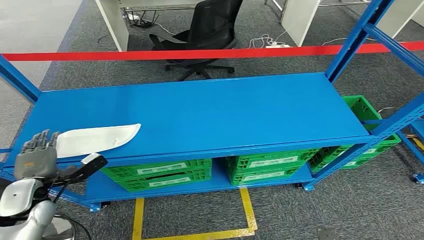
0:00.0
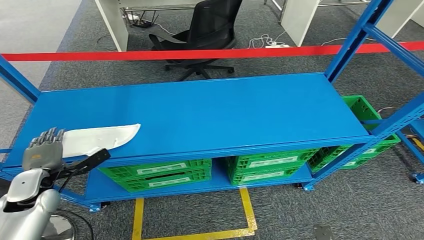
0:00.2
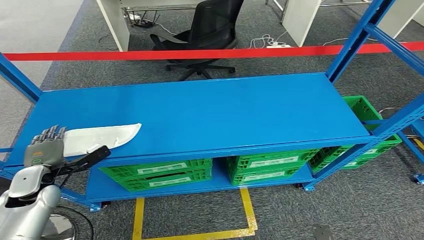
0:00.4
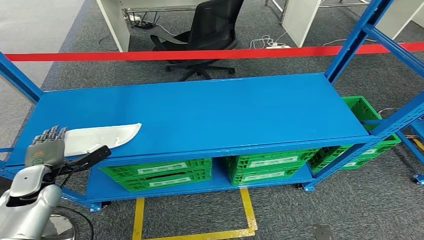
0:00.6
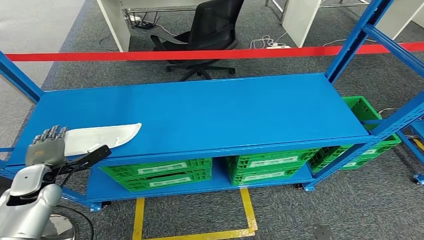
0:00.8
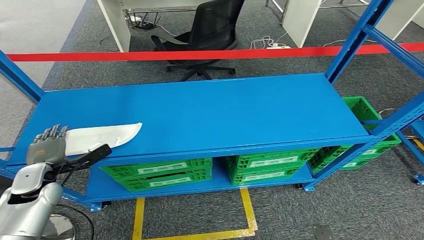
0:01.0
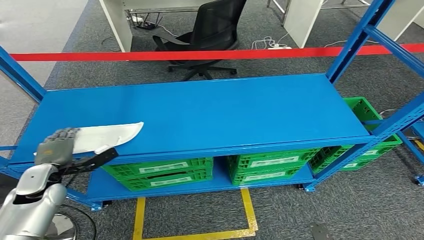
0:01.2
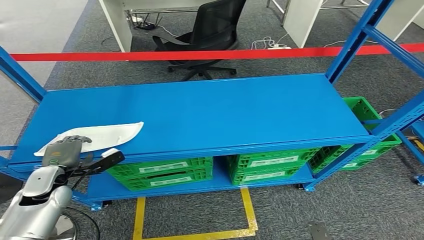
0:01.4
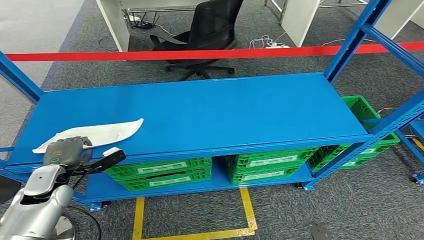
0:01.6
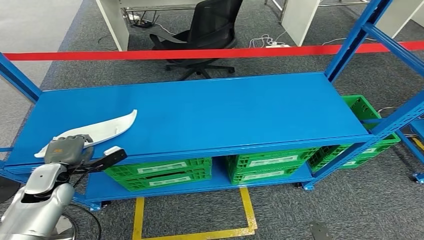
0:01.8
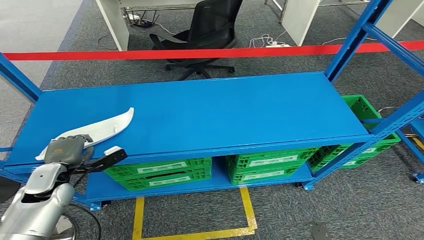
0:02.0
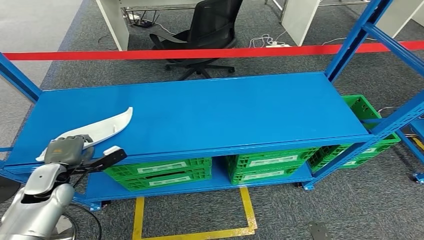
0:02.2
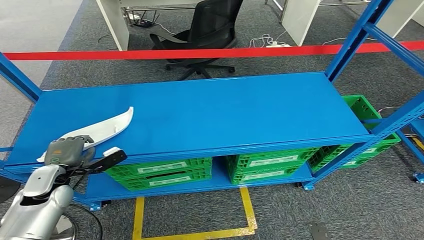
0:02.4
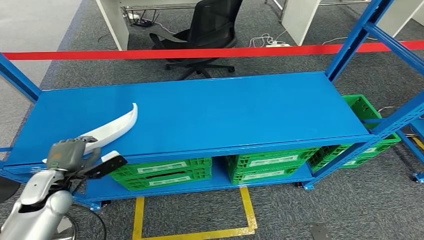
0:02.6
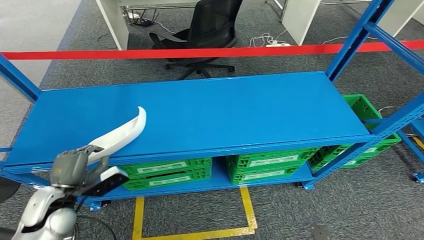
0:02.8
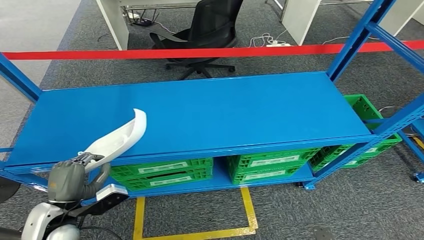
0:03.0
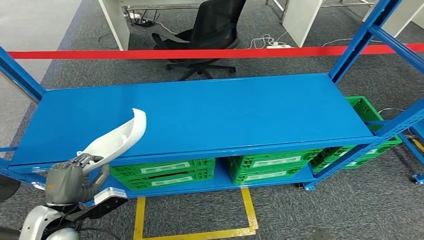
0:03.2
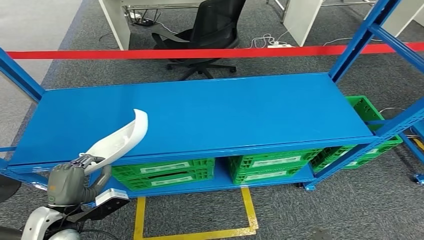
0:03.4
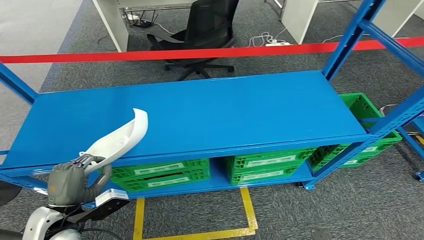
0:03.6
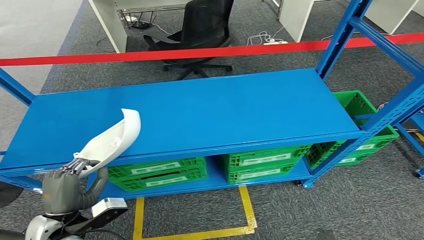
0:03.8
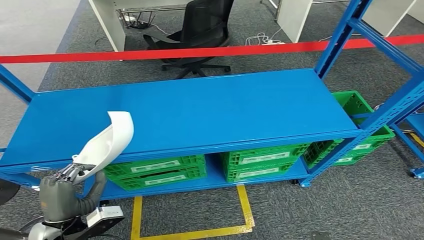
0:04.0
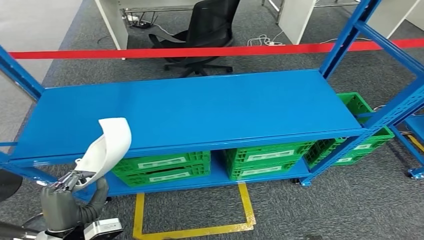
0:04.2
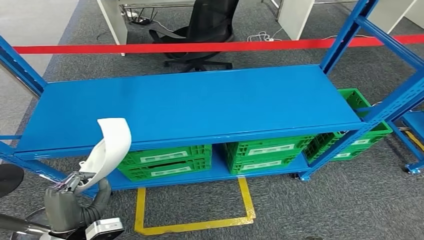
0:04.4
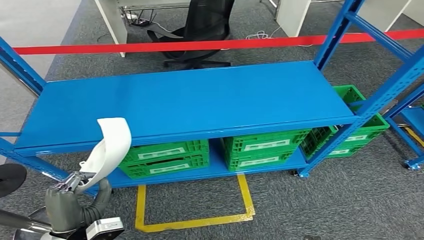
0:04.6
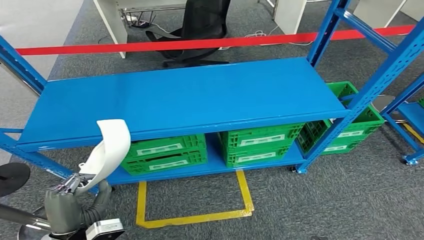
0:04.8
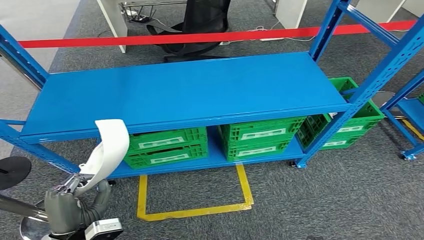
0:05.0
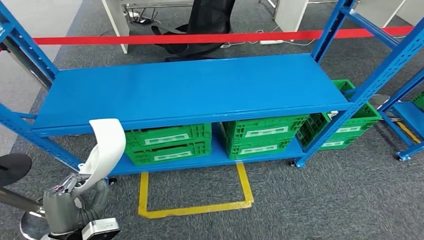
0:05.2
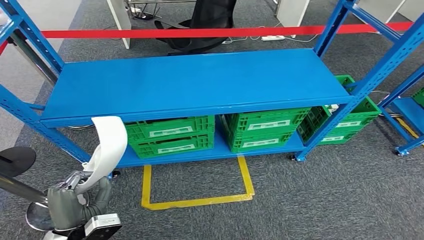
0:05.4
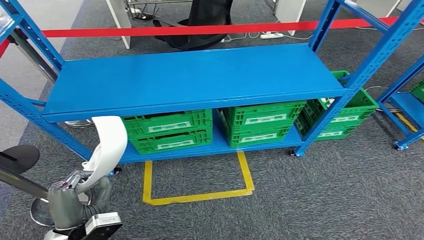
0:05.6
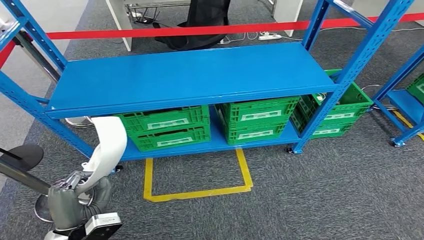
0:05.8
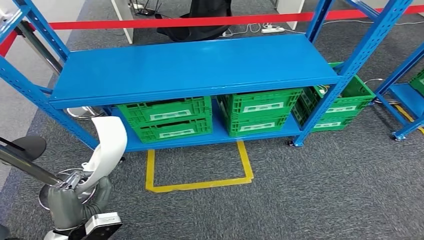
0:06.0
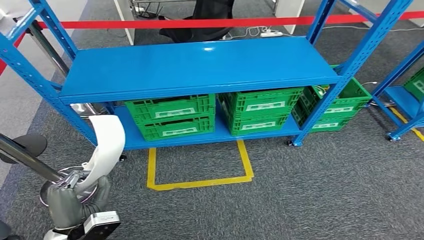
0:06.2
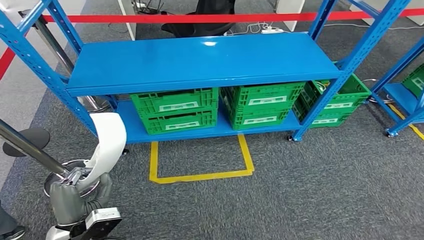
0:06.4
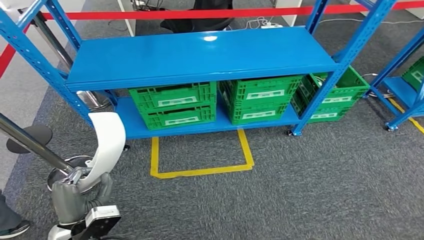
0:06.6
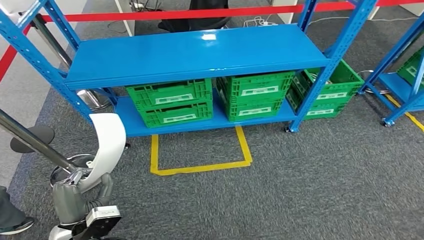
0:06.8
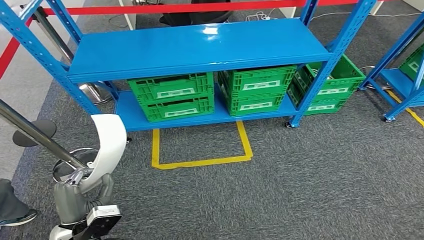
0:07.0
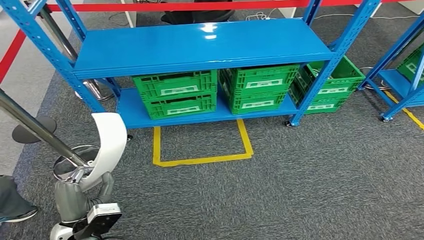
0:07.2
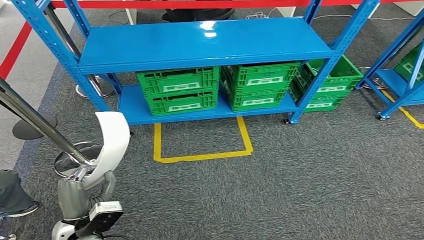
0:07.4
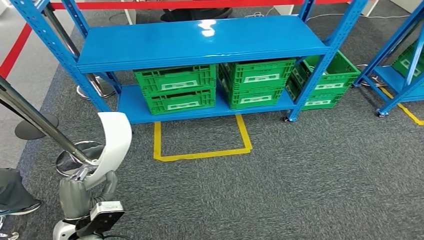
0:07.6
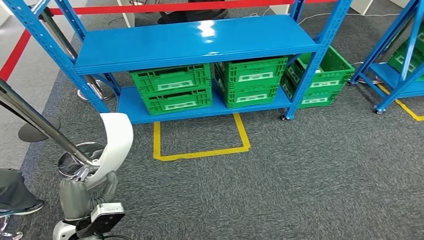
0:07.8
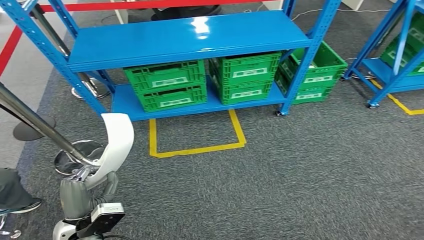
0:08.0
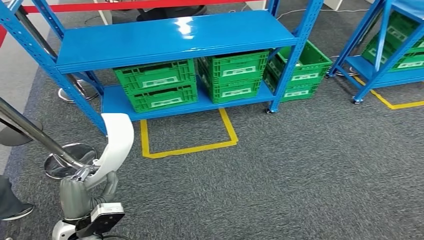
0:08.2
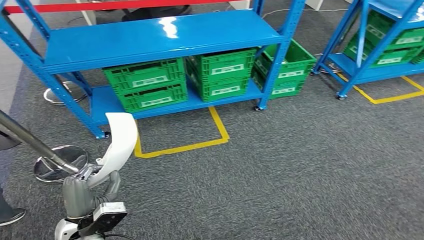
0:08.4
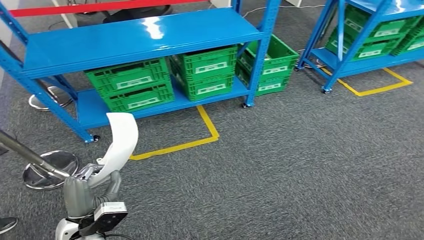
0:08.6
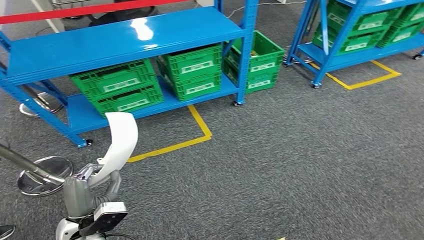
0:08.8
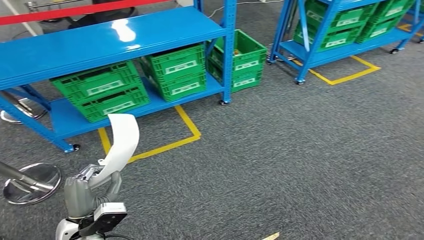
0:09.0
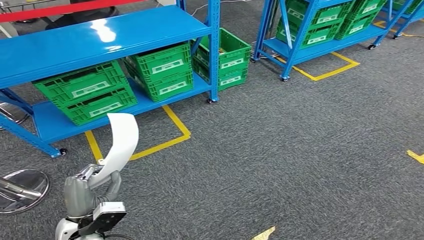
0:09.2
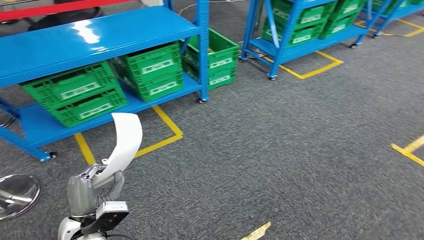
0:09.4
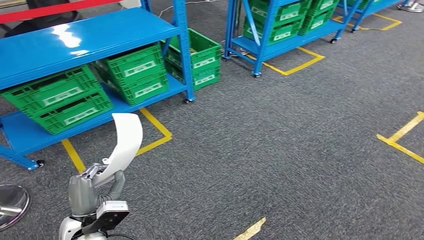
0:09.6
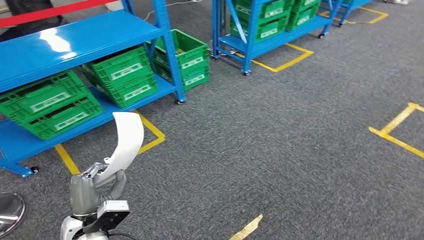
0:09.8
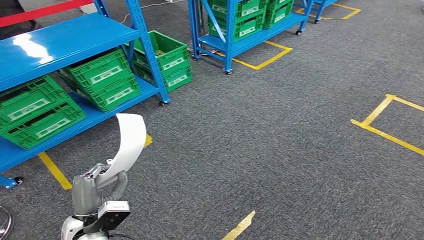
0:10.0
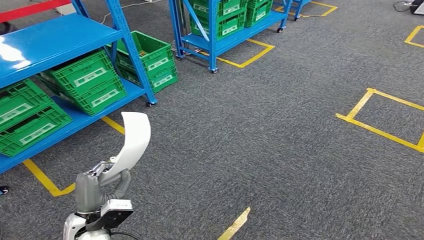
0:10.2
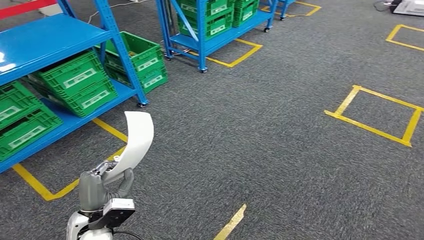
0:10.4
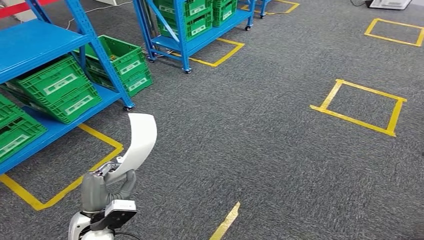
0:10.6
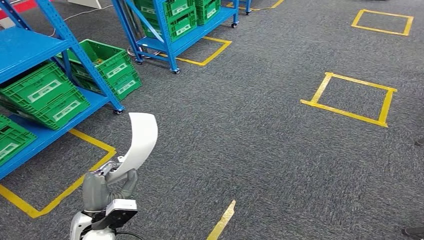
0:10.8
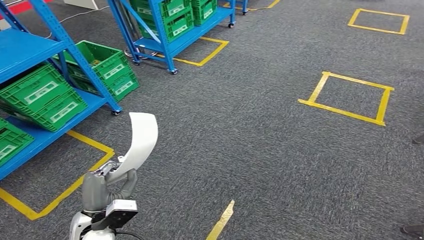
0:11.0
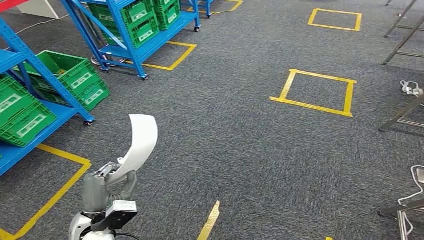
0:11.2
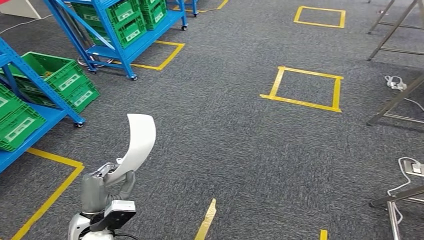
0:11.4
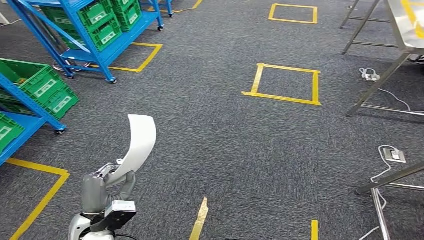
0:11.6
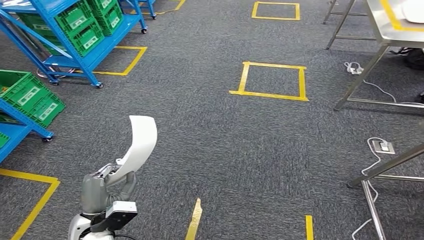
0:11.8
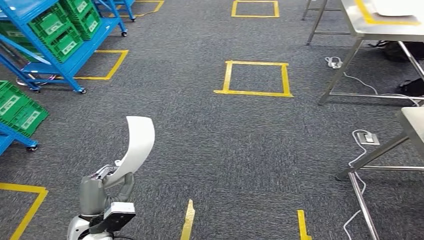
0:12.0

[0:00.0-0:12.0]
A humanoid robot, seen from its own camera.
Step, 0:00.0 to 0:05.4: Pick up the small component from the shelf.
0:01.6 to 0:03.0: The left hand heads backward and to the right, covering approximately 10 cm.

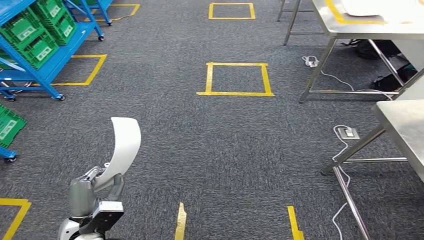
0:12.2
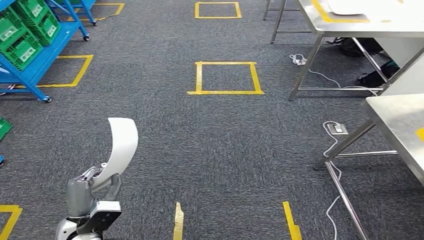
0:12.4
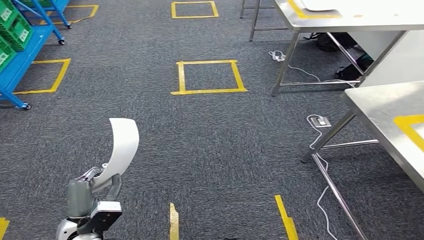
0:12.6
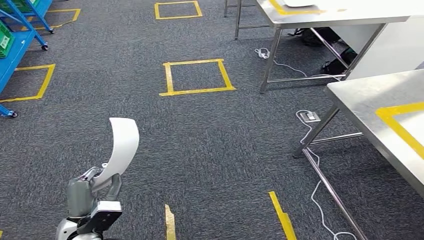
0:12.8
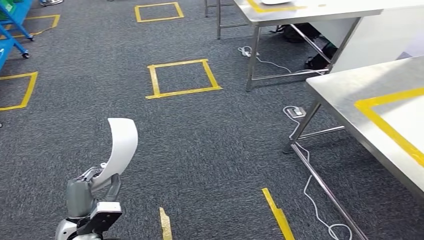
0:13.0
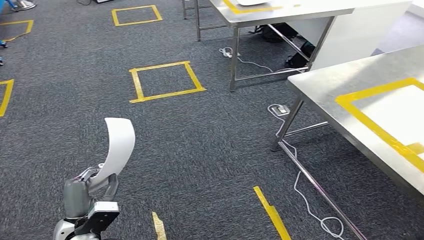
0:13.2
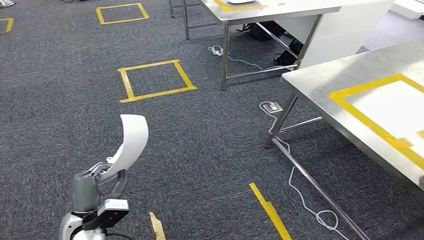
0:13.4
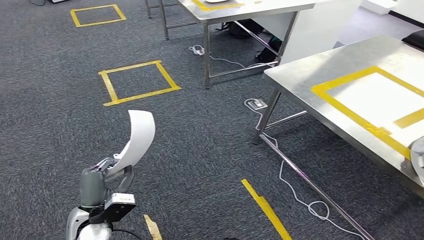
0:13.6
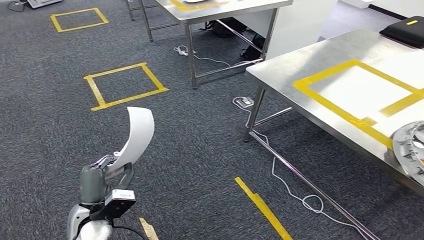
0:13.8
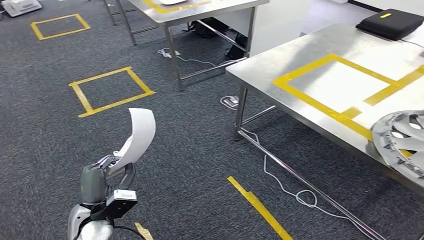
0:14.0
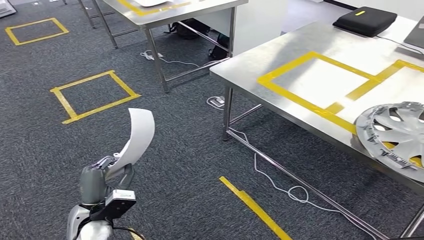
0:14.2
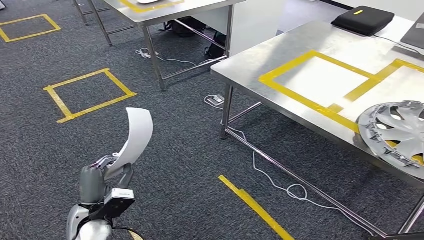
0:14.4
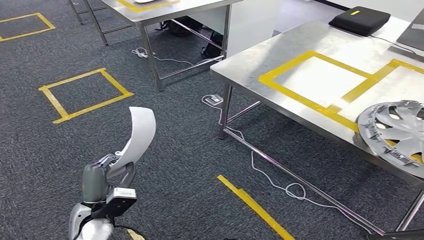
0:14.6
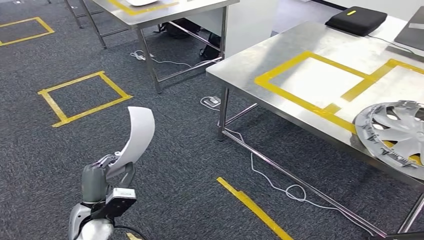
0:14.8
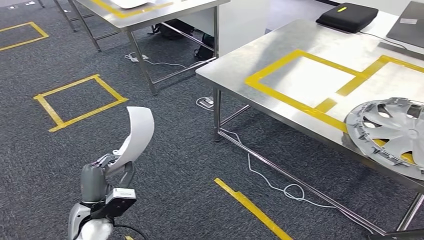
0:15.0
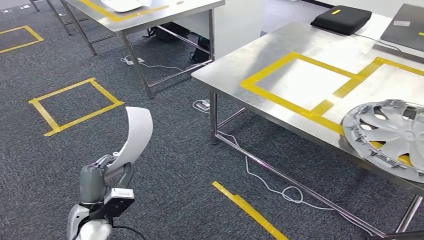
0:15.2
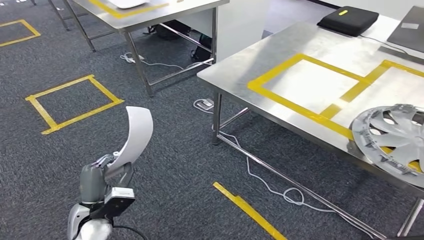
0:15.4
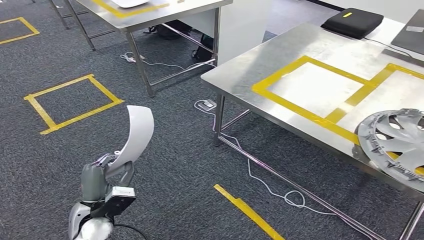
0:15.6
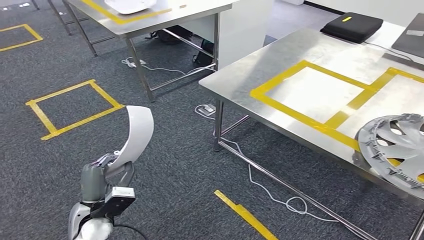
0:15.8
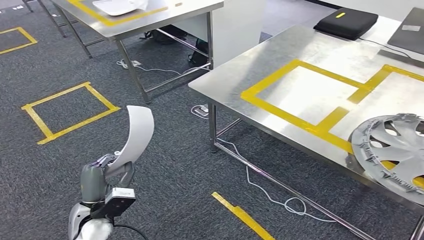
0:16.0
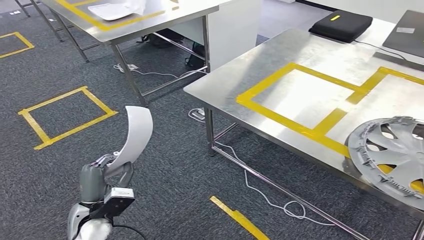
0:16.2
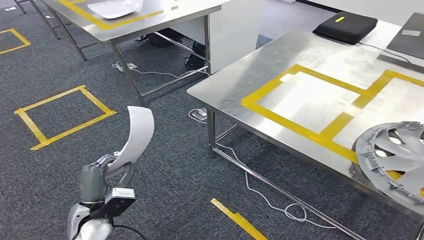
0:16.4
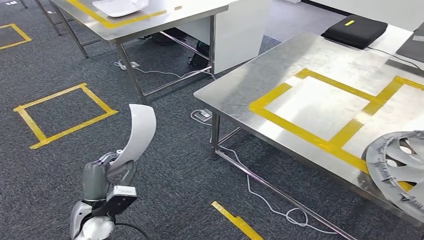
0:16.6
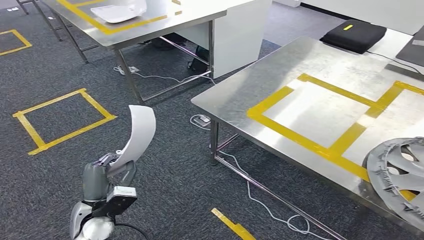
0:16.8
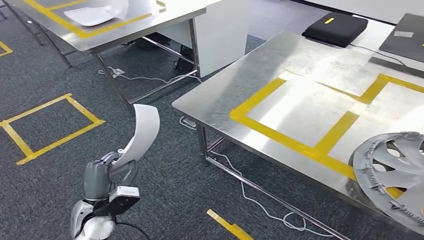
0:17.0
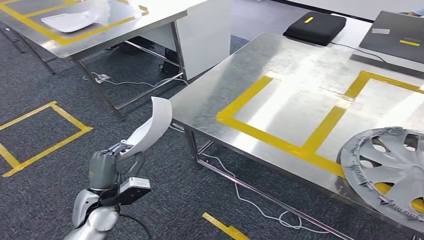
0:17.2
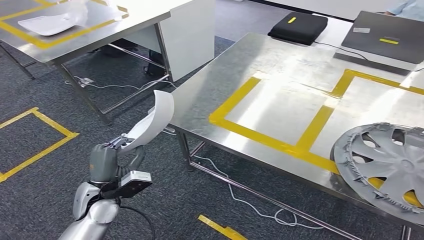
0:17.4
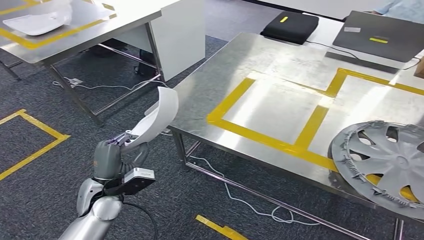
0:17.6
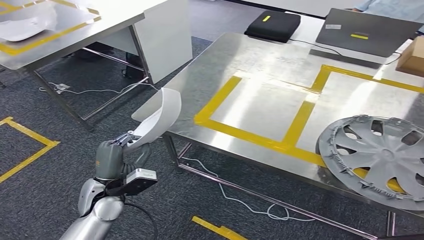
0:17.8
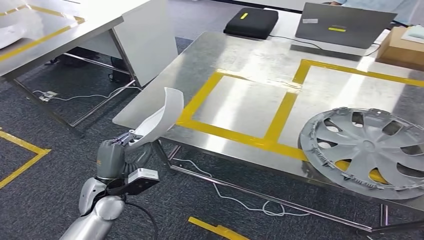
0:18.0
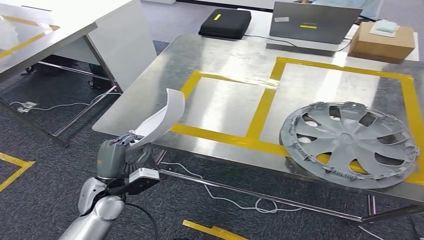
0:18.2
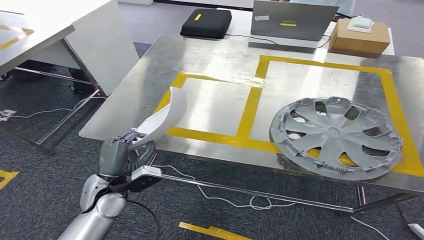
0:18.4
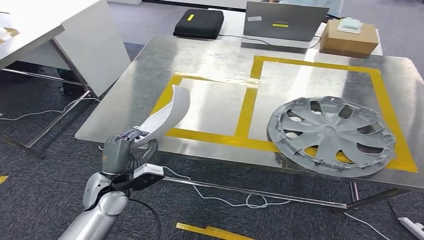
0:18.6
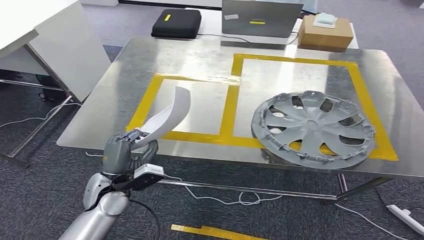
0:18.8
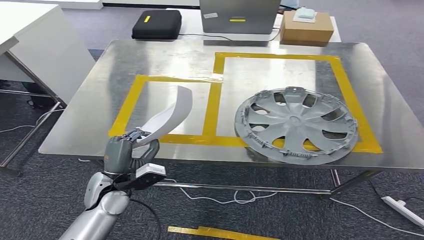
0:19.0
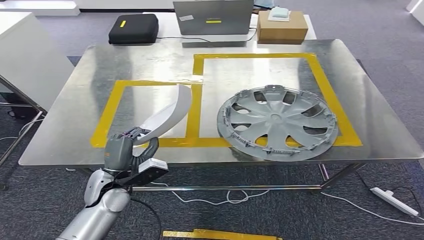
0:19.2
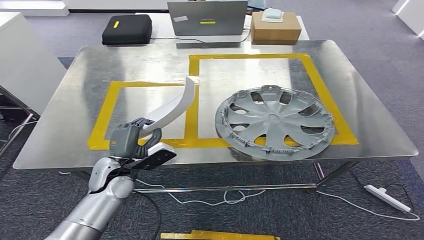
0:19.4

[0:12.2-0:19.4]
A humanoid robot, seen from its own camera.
Step, 0:12.2 to 0:18.8: Bring the small component to the front of the workbench.
